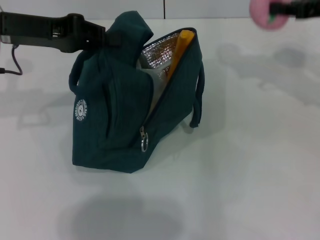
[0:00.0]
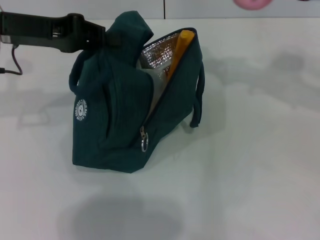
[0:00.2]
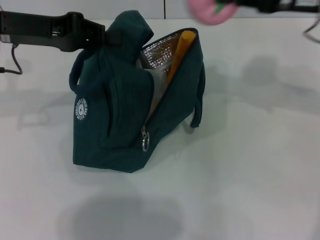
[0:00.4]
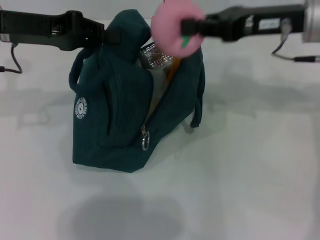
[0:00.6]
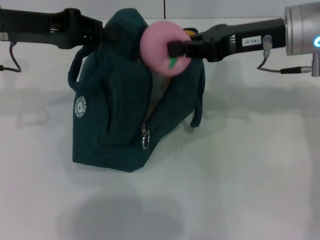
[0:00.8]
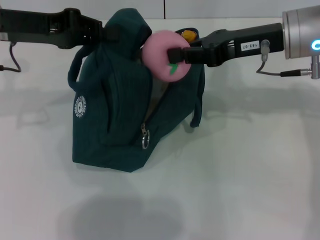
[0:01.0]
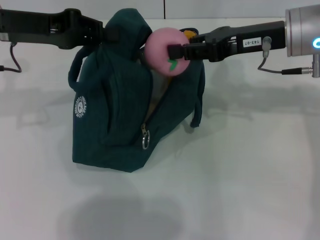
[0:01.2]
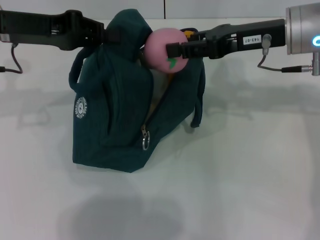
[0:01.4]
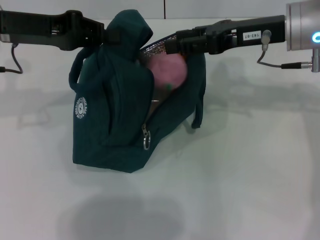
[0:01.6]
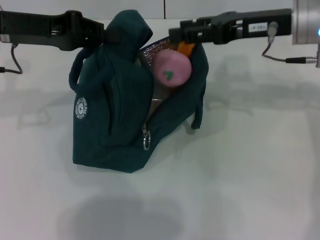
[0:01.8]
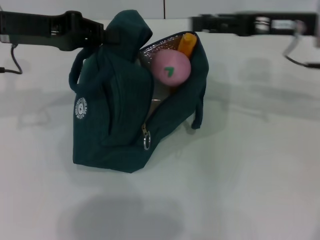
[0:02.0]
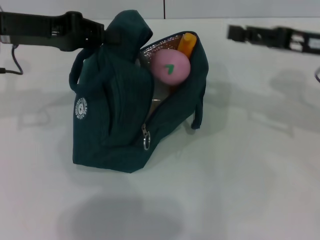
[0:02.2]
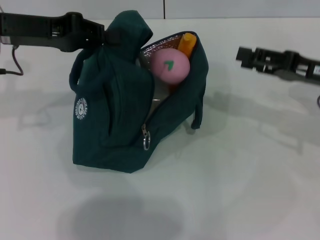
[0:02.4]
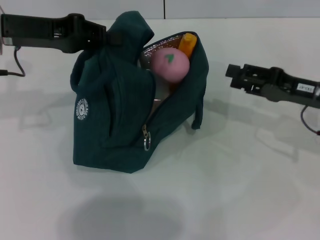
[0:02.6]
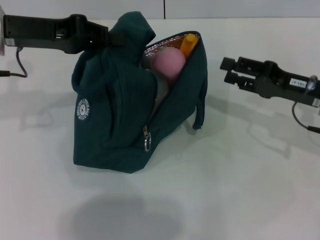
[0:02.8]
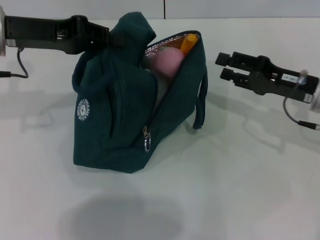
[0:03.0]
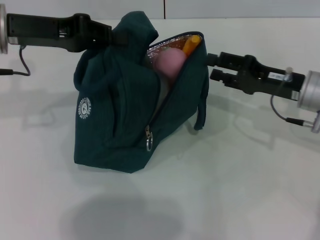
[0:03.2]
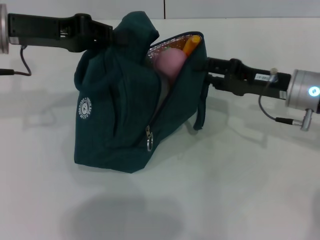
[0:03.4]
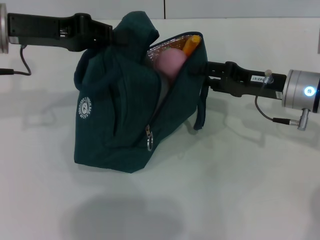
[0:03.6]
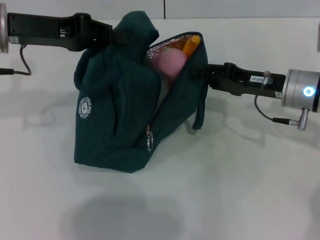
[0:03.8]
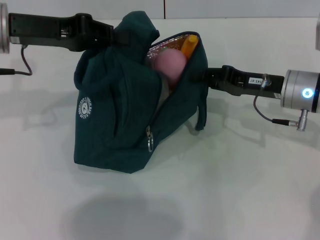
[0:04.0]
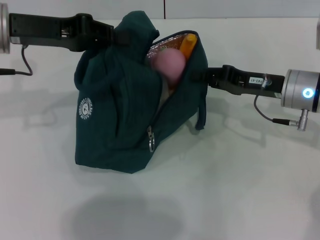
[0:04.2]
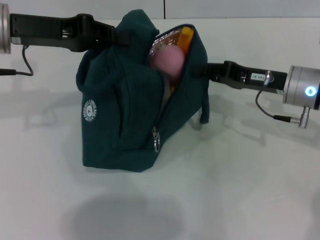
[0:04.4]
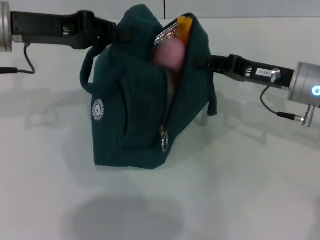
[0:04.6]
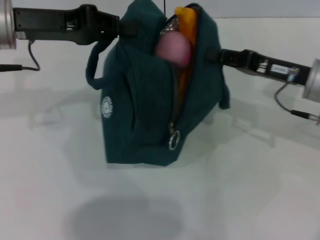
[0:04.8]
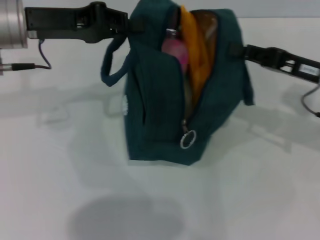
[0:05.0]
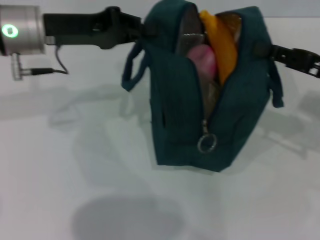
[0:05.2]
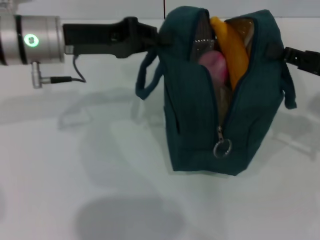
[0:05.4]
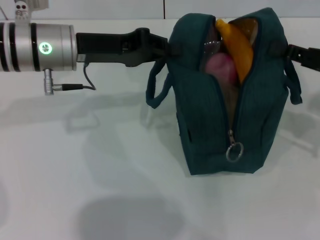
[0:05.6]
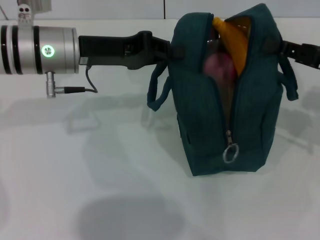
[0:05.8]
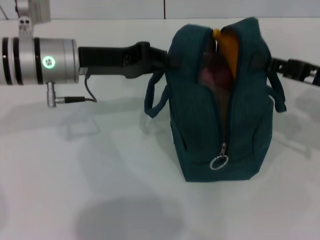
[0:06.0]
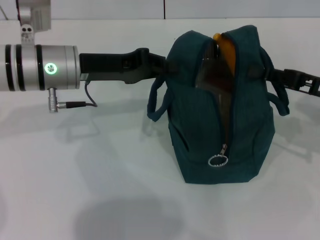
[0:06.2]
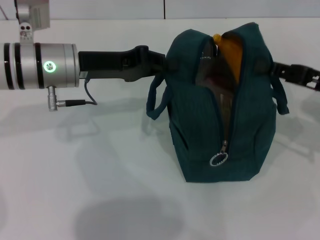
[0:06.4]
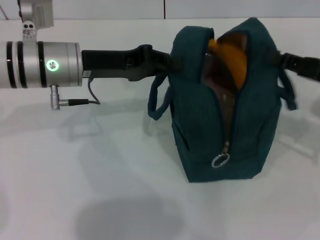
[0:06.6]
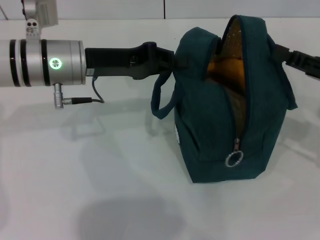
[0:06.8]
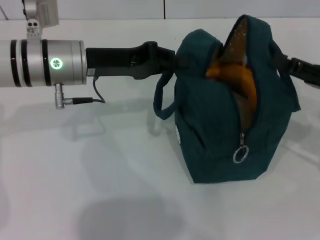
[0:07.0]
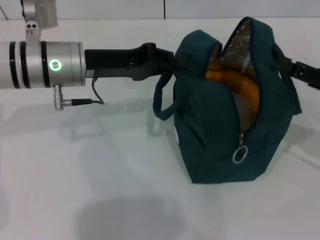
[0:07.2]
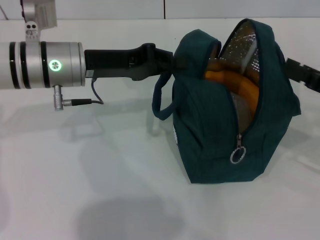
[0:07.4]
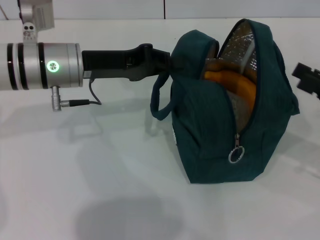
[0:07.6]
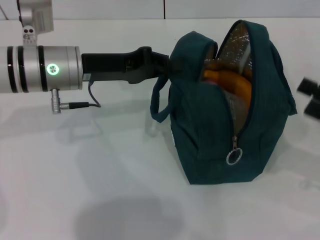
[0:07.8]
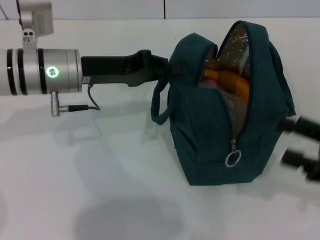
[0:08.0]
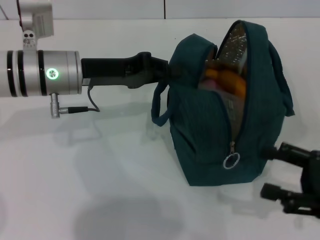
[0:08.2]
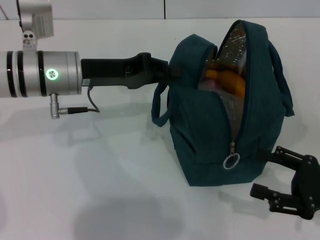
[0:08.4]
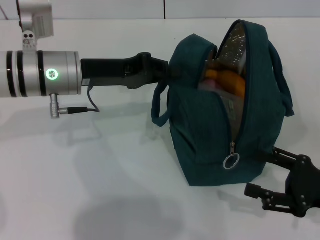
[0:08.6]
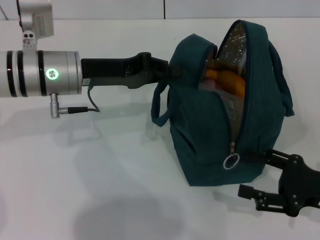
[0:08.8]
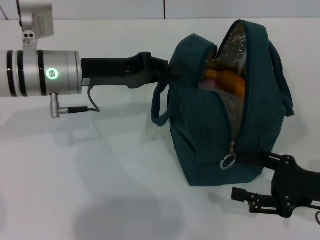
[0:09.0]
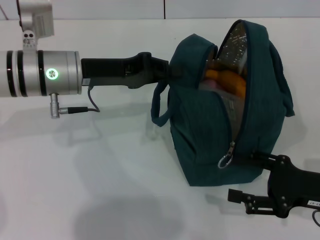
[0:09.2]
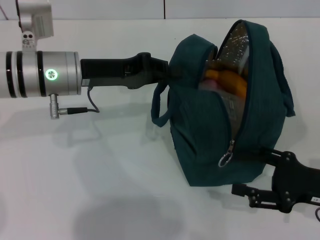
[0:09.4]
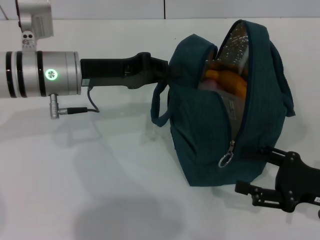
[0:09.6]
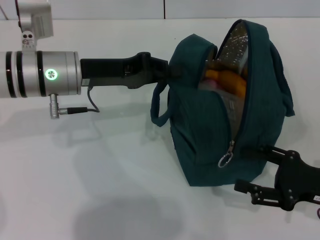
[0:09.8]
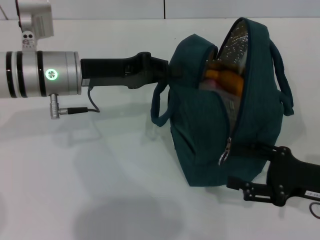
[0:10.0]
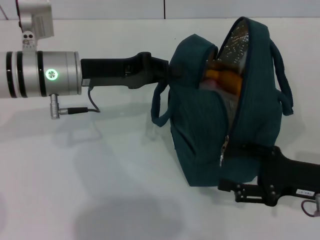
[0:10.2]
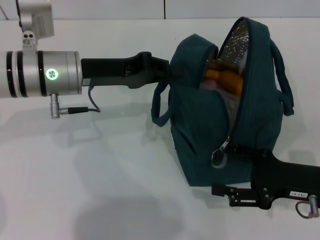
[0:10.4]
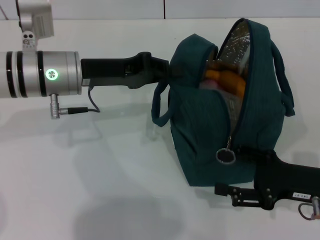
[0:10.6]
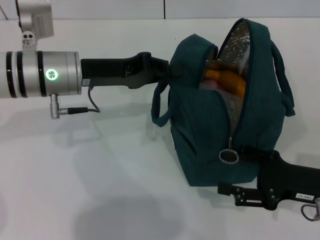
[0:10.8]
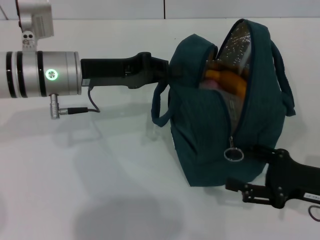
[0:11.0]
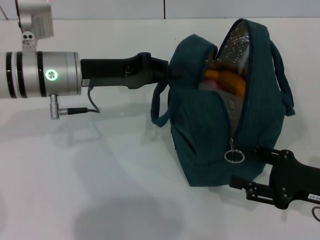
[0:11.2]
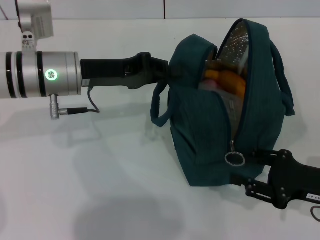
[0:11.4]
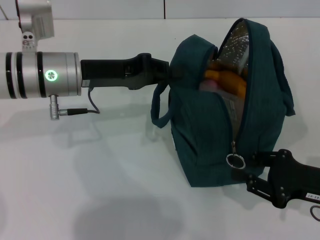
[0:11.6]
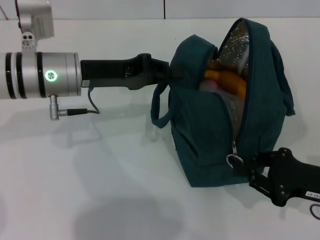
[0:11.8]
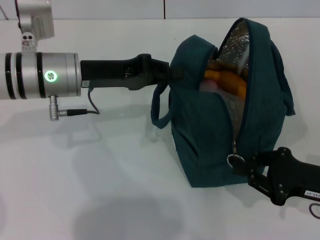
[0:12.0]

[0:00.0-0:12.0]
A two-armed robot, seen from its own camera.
Step, 0:02.0 to 0:07.4: Hold the lunch bag with your right hand.
0:00.0 to 0:01.6: The right gripper shifts approximately 10 cm to the left, and opens its fingers.
0:01.6 to 0:03.0: The right gripper is displaced downward and to the right by some 15 cm.
0:03.0 to 0:04.4: The right gripper closes.
0:04.4 to 0:06.0: The left gripper goes about 10 cm to the right and downward, while the right gripper heads to the right, covering roughly 10 cm.
0:06.0 to 0:07.6: The right gripper travels backward by roughly 5 cm, and opens its fingers.
0:07.6 to 0:09.0: The right gripper moves downward, some 5 cm.
0:09.0 to 0:10.4: There are only small adjustments of the grippers.
0:10.4 to 0:12.0: The right gripper closes.

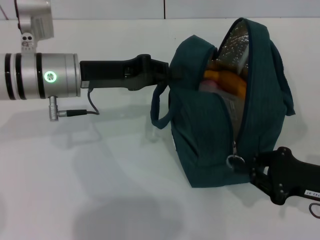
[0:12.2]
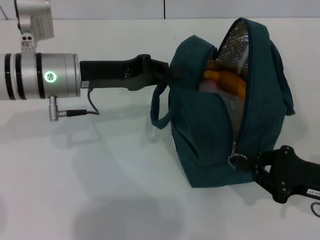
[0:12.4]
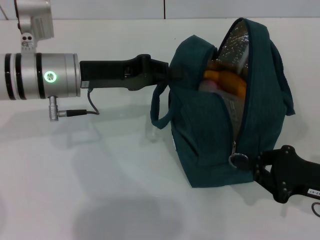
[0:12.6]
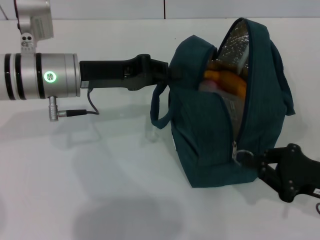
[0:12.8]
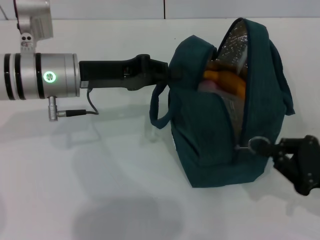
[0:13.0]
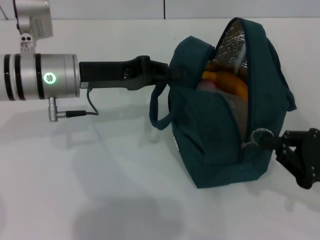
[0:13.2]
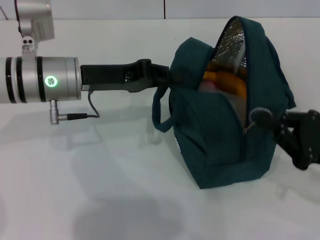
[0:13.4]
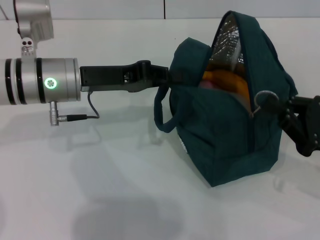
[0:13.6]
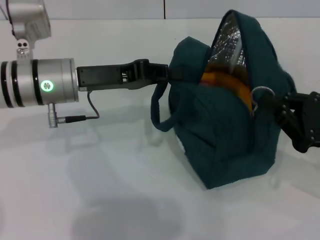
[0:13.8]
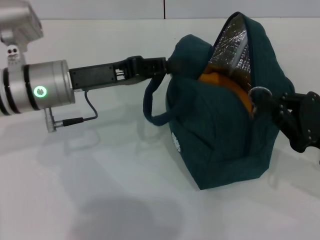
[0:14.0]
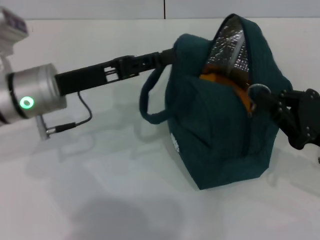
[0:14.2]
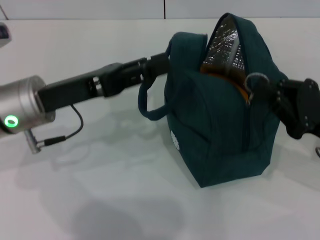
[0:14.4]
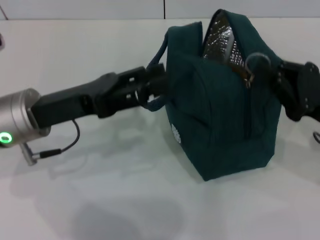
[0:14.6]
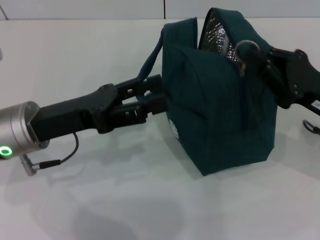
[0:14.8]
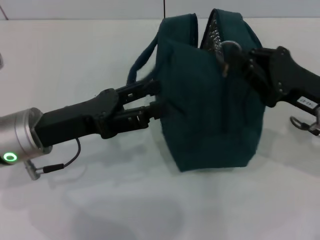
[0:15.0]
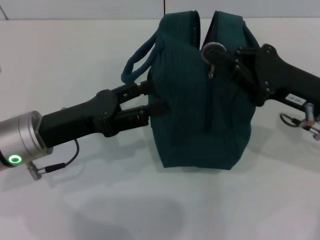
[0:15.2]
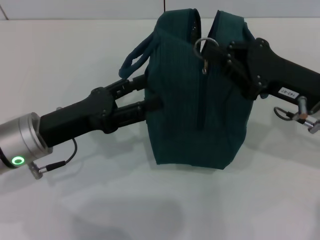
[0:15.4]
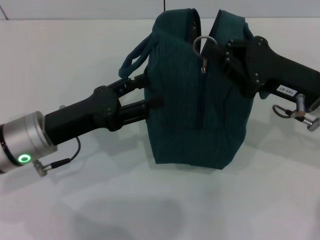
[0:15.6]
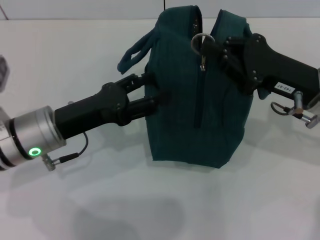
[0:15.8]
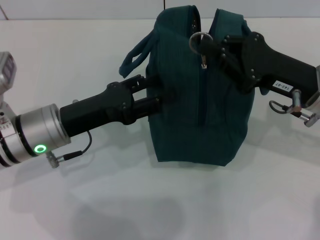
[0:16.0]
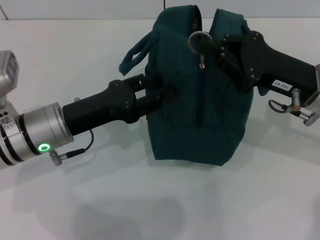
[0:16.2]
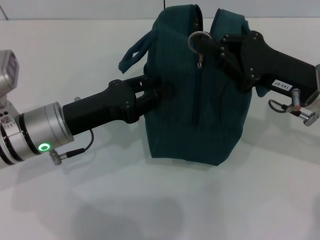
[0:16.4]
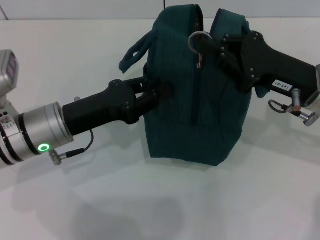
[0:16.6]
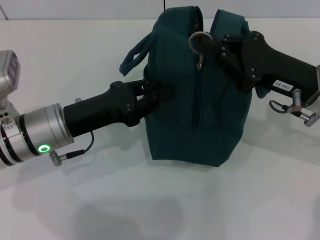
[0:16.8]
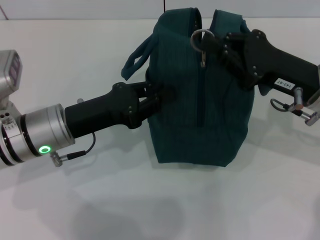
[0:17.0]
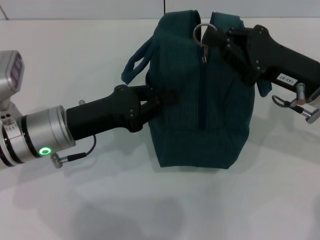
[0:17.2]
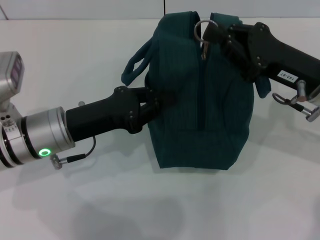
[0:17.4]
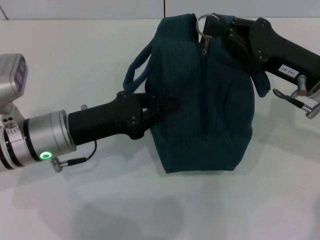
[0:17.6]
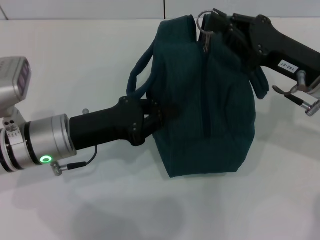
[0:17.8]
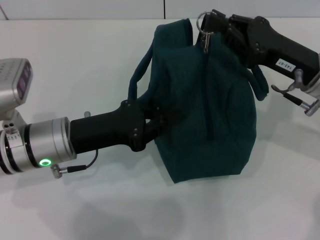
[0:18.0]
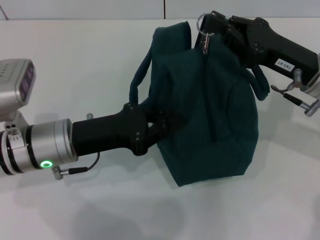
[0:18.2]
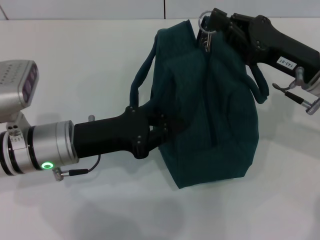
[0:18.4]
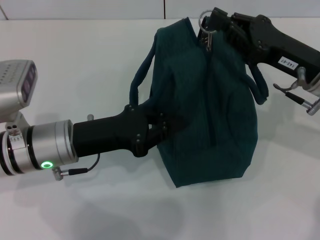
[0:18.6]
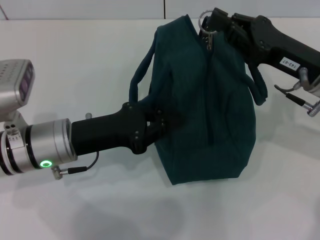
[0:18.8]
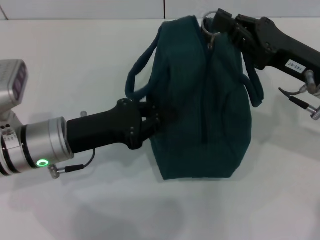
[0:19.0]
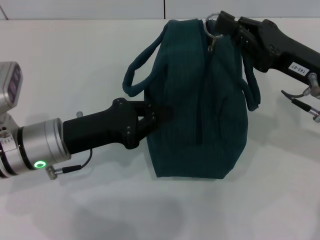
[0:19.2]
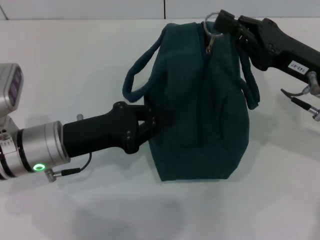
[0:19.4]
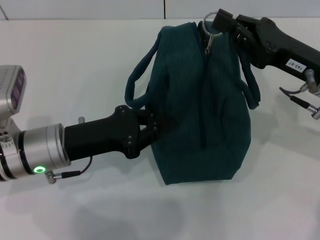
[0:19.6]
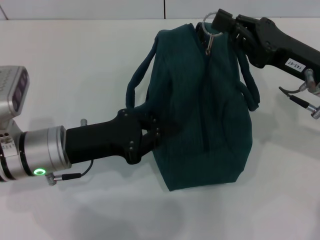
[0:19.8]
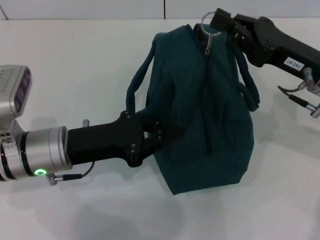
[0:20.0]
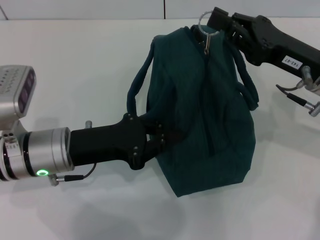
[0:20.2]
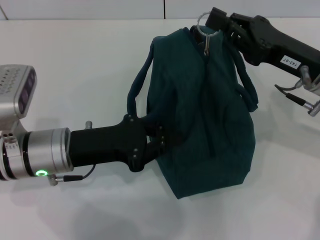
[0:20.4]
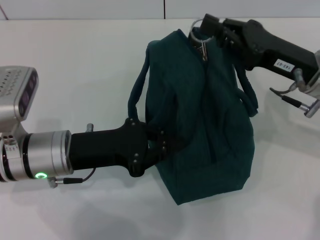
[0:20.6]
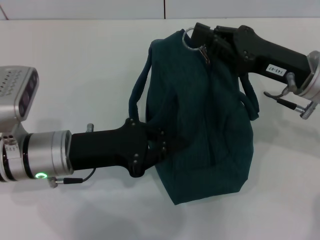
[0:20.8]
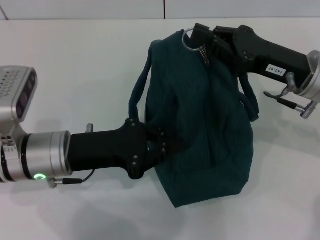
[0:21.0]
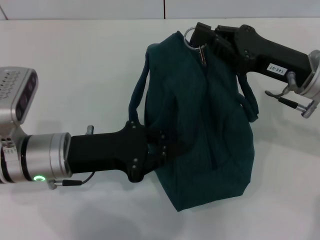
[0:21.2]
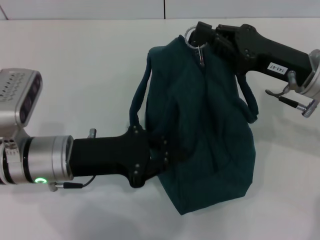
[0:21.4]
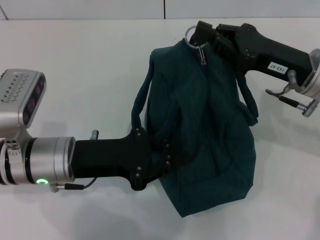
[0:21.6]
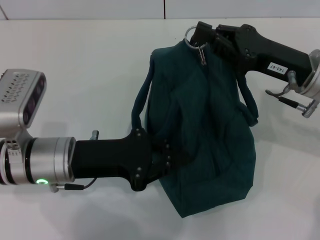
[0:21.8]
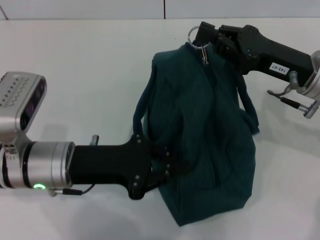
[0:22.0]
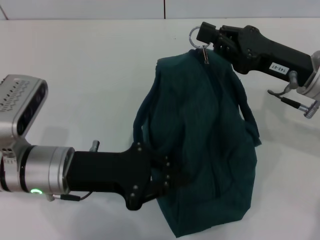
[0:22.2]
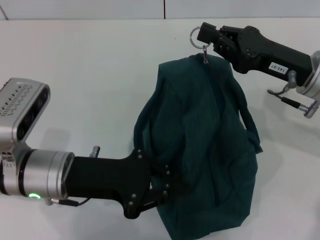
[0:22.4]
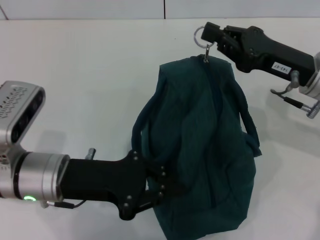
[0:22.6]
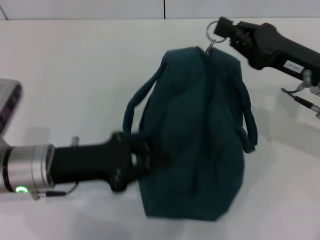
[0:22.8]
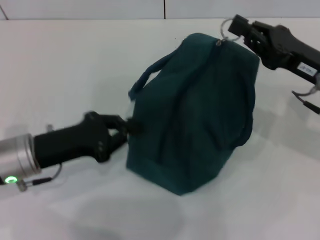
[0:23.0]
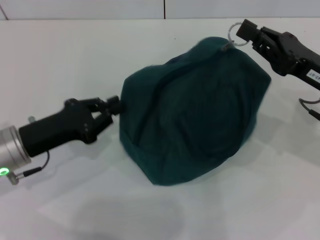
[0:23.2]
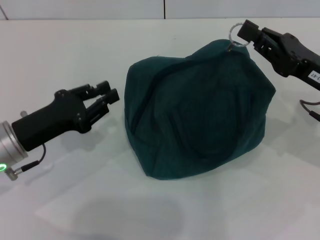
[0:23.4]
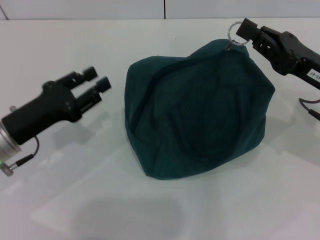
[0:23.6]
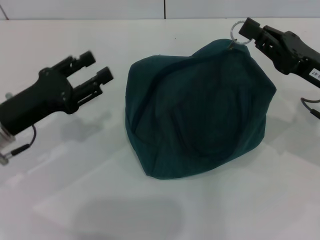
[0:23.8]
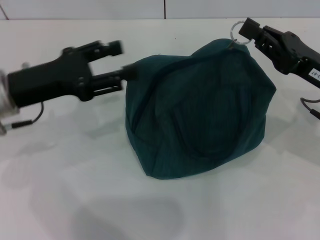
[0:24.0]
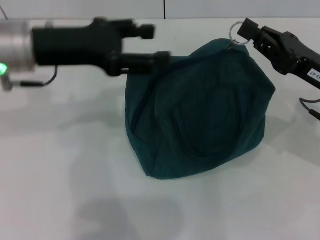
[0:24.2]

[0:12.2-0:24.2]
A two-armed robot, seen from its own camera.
Step, 0:12.2 to 0:14.6: Hold the lunch bag with your left hand.
0:13.8 to 0:15.2: The right gripper travels forward and to the left by some 10 cm; the left gripper shifts approximately 5 cm backward, and opens its fingers.
0:15.2 to 0:16.6: The left gripper closes.
0:16.6 to 0:18.2: The left gripper closes its fingers.
0:18.2 to 0:21.2: The grippers stay close to where they were, moving slightly.
0:22.6 to 0:24.2: The left gripper is displaced upward and forward by some 15 cm, and opens up.
